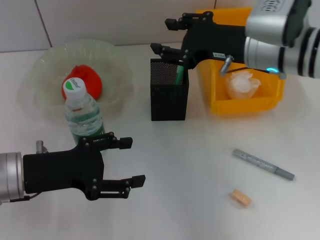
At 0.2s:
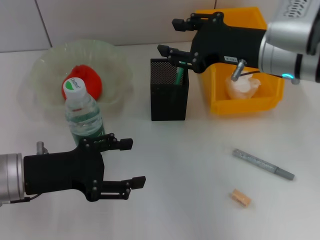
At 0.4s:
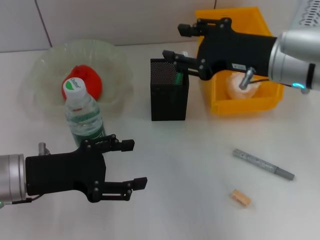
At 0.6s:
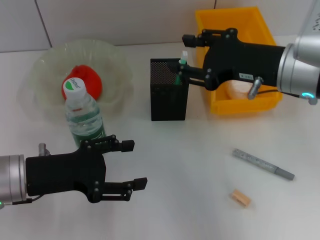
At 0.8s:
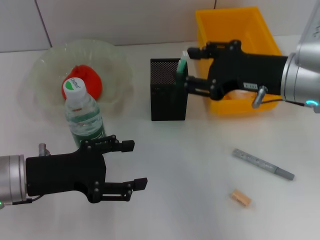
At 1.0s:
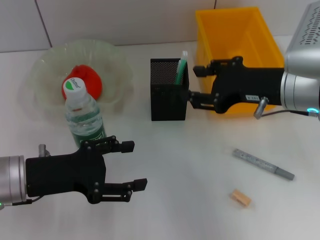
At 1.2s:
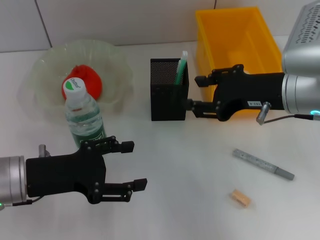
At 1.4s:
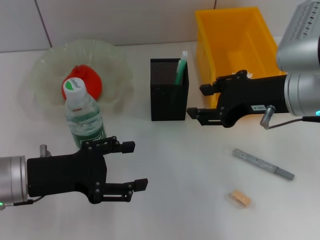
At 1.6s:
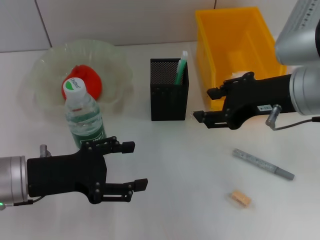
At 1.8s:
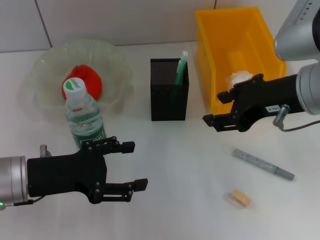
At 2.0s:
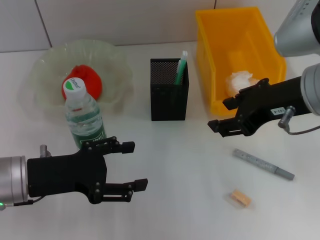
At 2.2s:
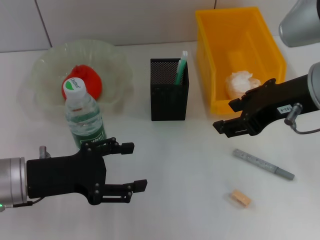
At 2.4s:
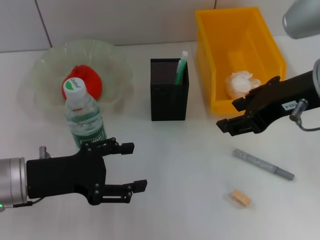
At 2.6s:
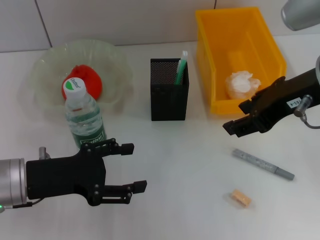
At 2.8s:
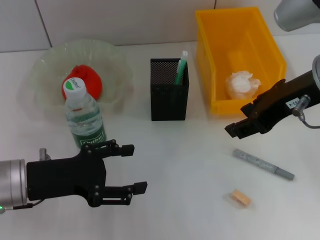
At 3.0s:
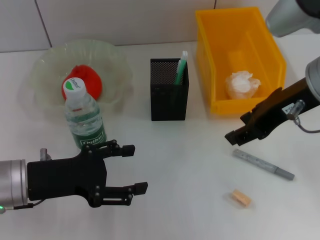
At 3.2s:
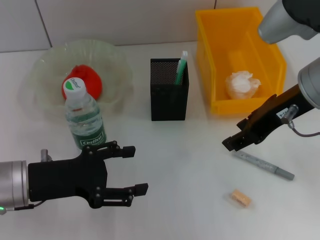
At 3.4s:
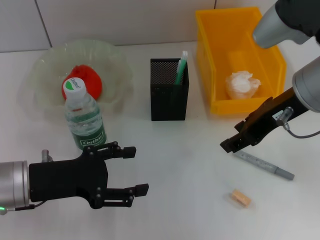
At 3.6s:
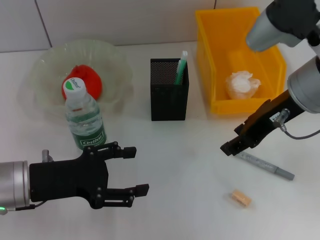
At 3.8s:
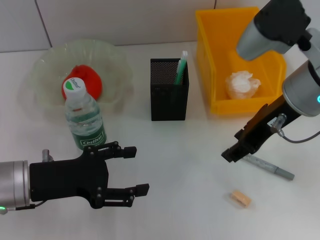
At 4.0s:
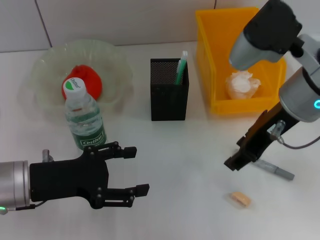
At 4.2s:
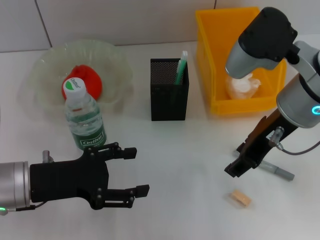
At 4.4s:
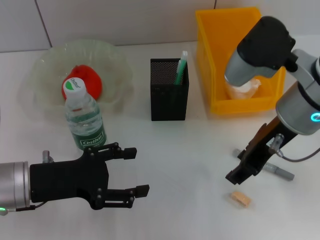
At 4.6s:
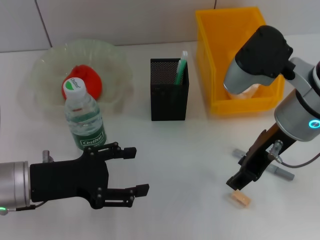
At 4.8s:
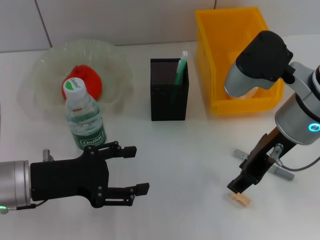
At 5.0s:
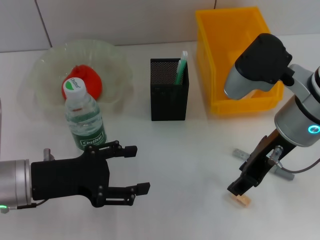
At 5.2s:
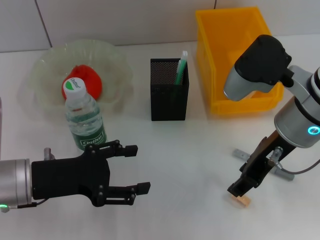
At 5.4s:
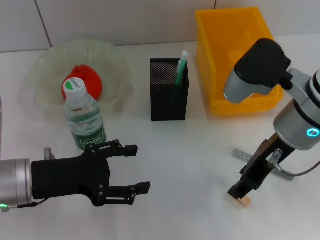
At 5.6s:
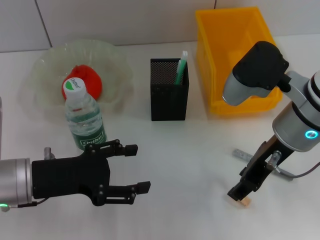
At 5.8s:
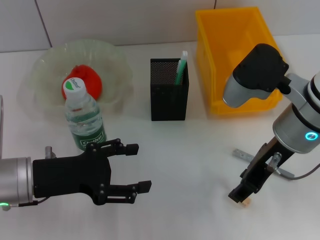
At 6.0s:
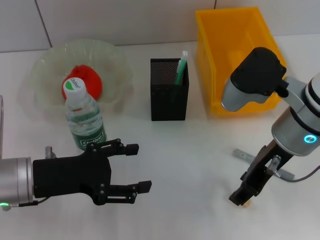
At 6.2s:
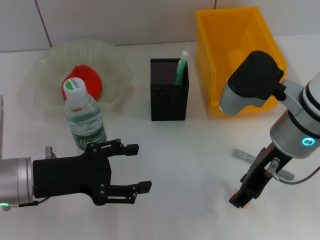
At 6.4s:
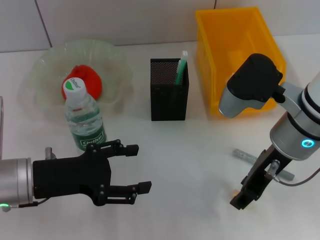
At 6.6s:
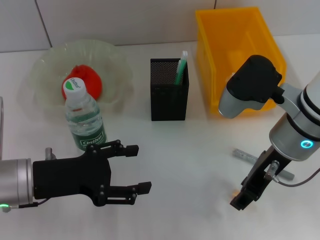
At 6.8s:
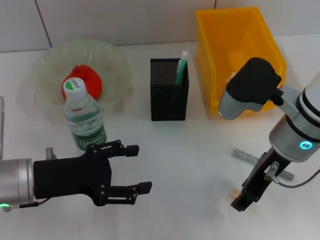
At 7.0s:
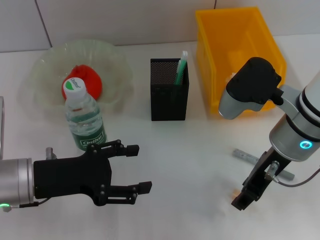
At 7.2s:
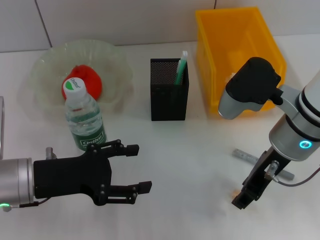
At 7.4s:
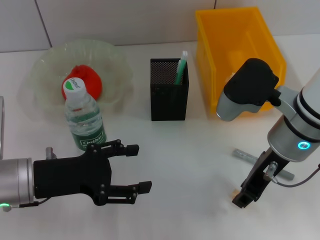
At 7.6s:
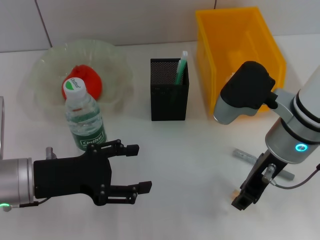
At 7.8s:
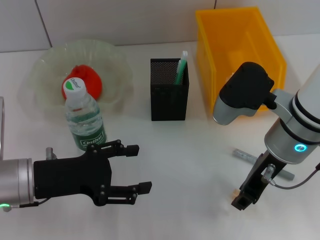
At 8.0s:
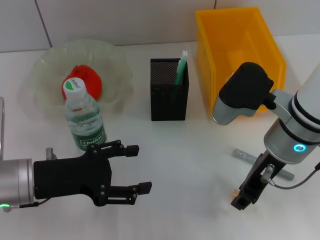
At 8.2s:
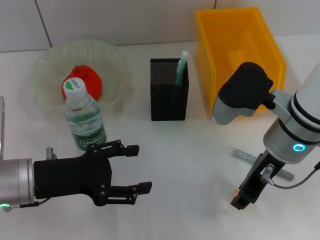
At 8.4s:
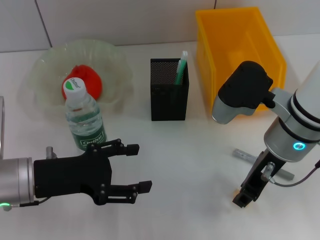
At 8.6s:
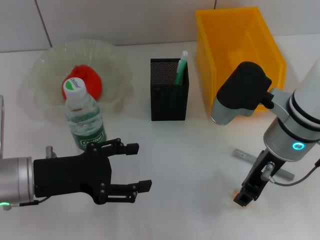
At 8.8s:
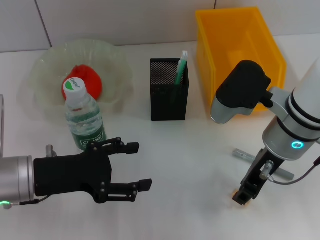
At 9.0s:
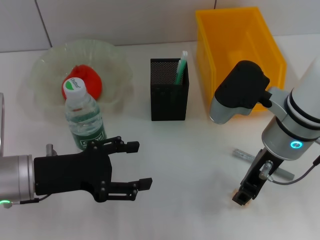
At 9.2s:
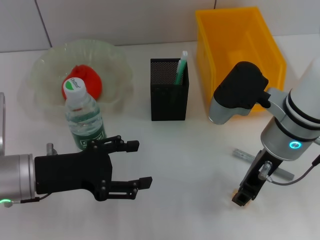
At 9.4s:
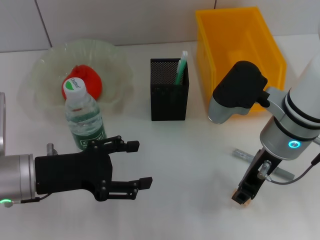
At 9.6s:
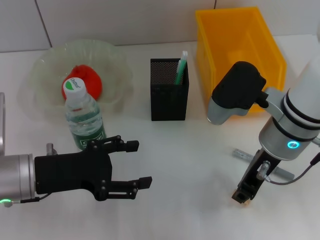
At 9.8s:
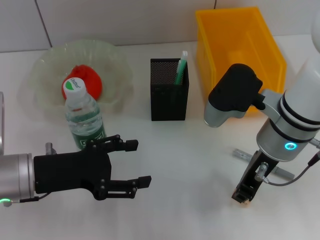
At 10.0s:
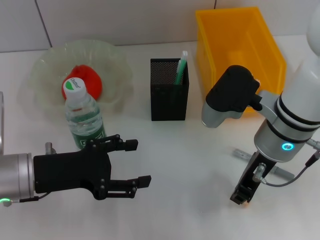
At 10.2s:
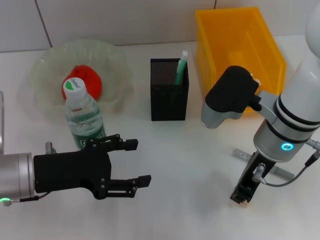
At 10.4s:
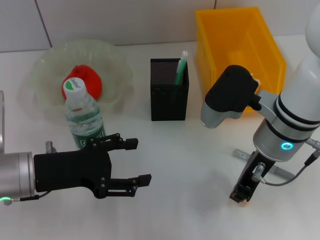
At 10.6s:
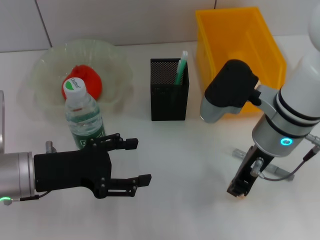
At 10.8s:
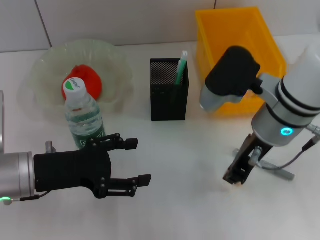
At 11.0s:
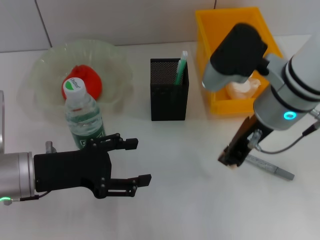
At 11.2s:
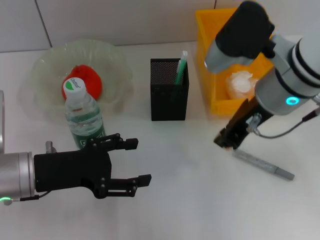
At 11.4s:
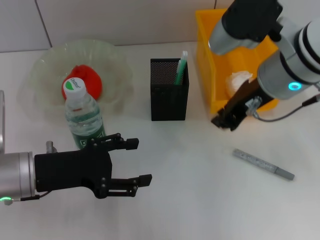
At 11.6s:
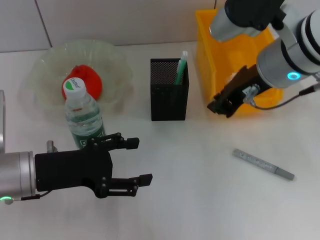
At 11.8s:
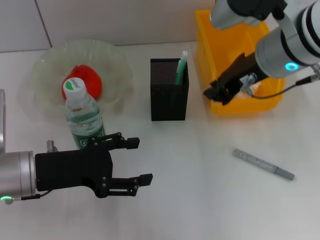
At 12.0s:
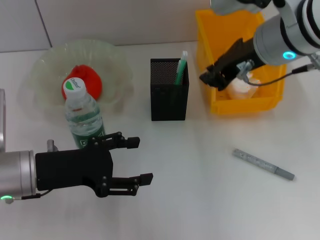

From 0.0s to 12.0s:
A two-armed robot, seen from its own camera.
Step, from 0.0s to 10.2s: Grab the eraser with the right hand.
From 0.0s to 1.6s: The right gripper shifts roughly 5 cm backward.
From 3.0s to 4.4s: There are only small adjustments of the grippers.
From 4.4s to 7.6s: The grippers make only small movements.
From 7.6s to 9.0s: Neither gripper changes place.
From 9.0s to 10.4s: Both grippers stay about where they are.
From 10.4s to 12.0s: The right gripper travels upward by approximately 10 cm.

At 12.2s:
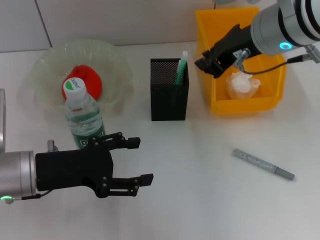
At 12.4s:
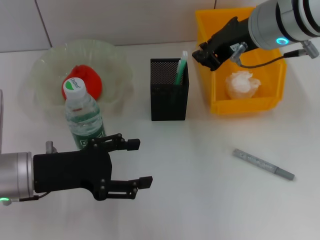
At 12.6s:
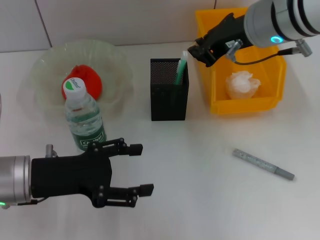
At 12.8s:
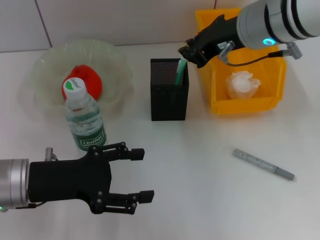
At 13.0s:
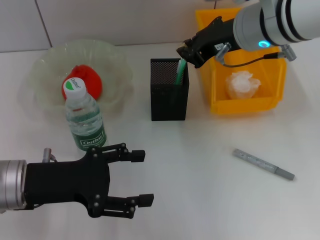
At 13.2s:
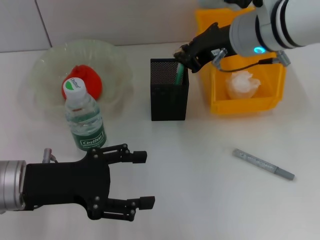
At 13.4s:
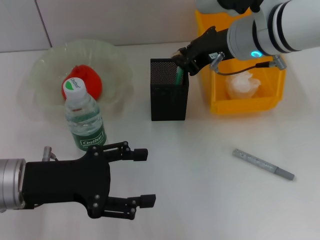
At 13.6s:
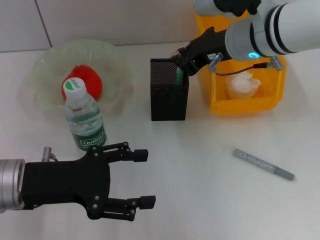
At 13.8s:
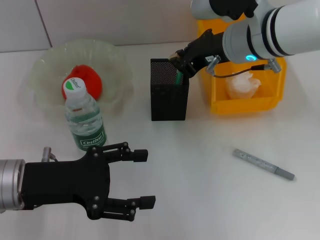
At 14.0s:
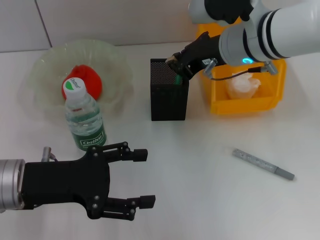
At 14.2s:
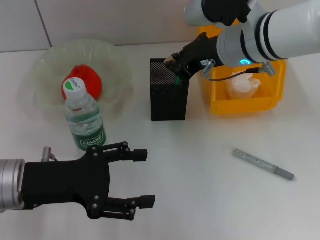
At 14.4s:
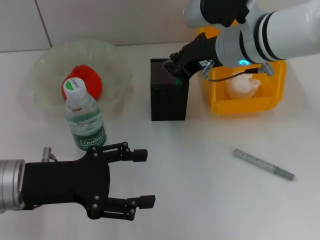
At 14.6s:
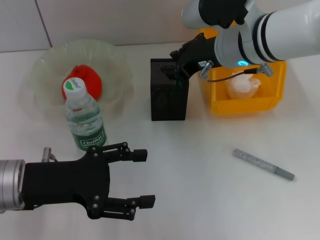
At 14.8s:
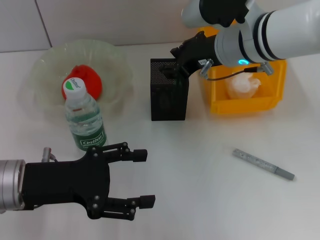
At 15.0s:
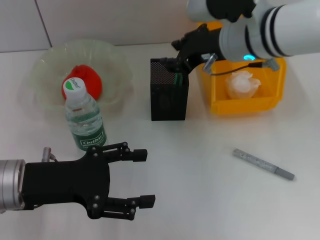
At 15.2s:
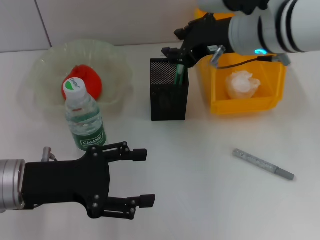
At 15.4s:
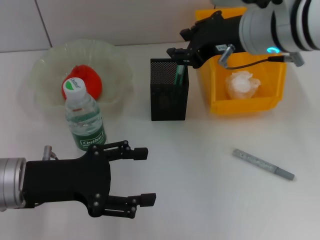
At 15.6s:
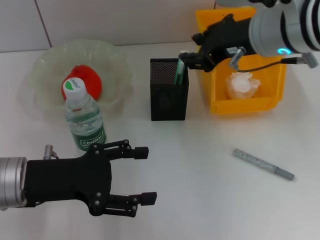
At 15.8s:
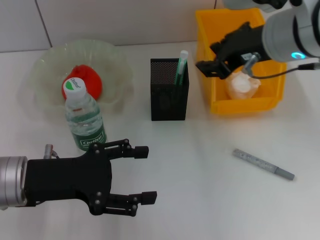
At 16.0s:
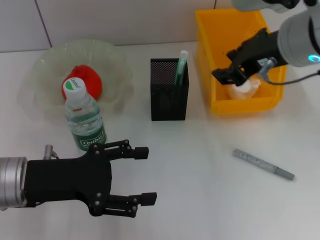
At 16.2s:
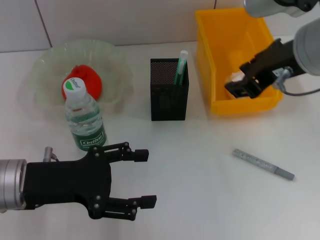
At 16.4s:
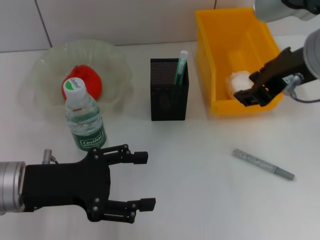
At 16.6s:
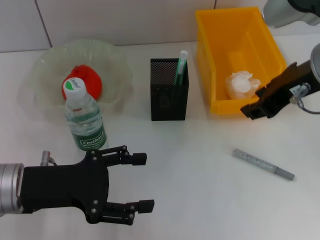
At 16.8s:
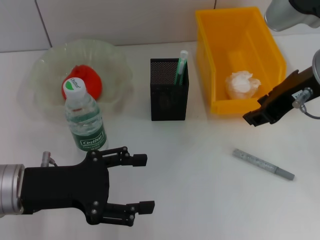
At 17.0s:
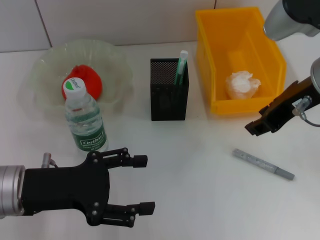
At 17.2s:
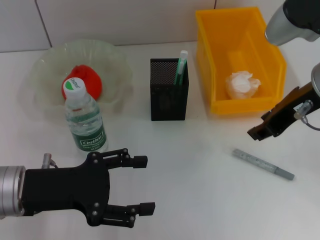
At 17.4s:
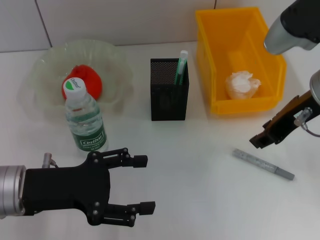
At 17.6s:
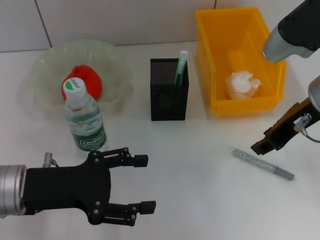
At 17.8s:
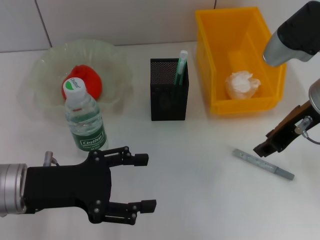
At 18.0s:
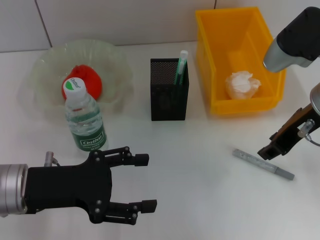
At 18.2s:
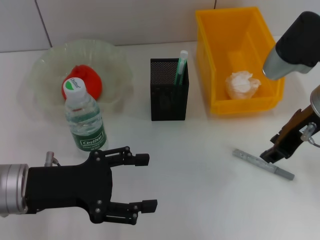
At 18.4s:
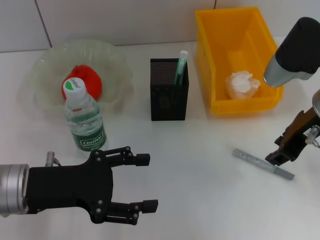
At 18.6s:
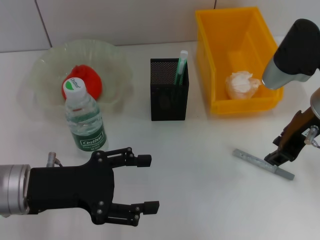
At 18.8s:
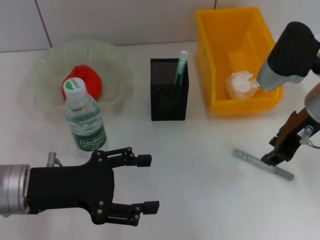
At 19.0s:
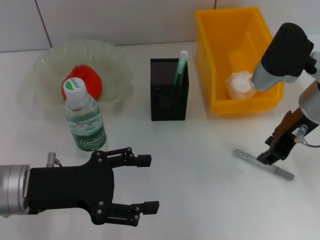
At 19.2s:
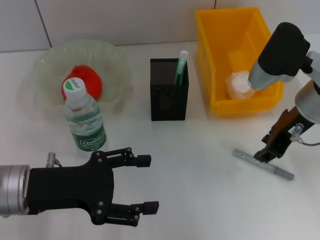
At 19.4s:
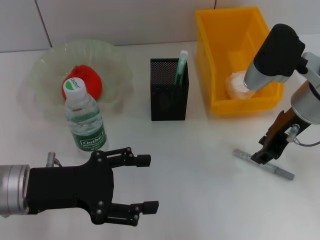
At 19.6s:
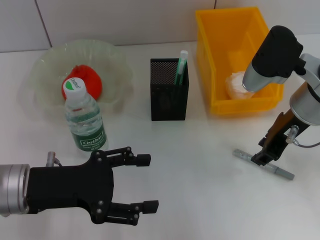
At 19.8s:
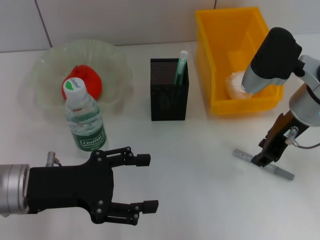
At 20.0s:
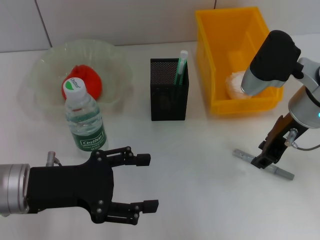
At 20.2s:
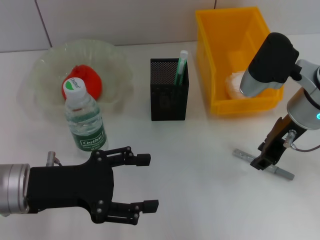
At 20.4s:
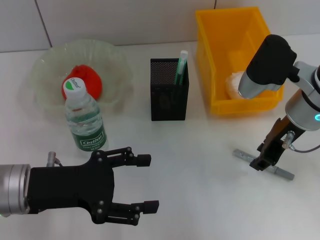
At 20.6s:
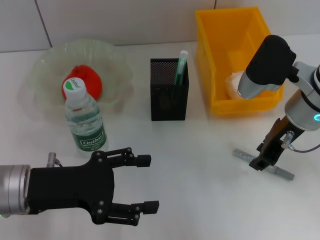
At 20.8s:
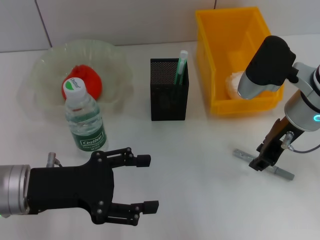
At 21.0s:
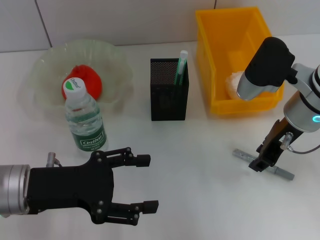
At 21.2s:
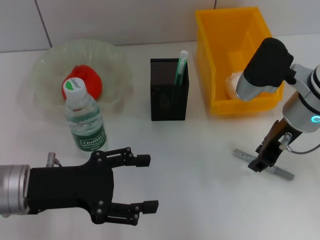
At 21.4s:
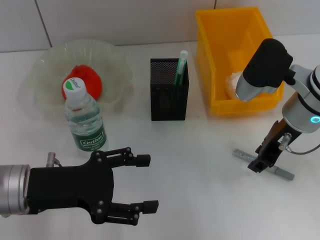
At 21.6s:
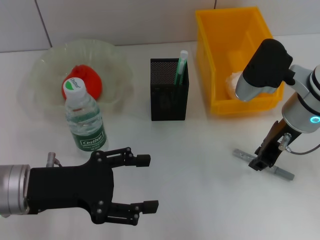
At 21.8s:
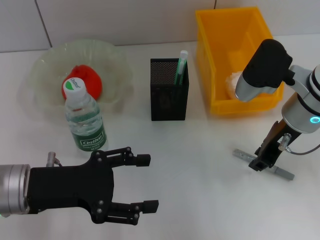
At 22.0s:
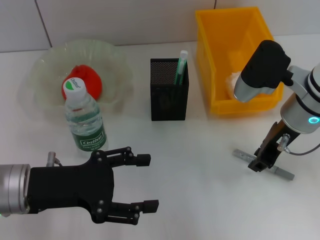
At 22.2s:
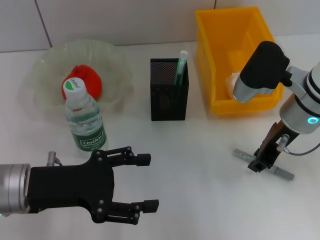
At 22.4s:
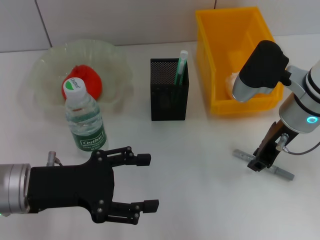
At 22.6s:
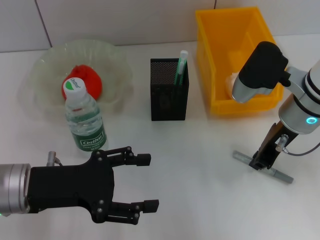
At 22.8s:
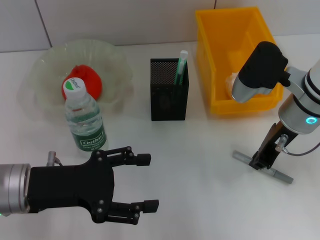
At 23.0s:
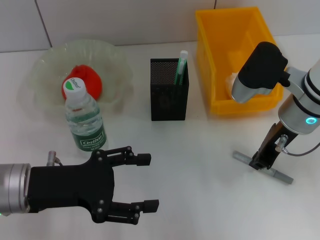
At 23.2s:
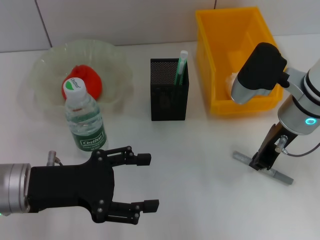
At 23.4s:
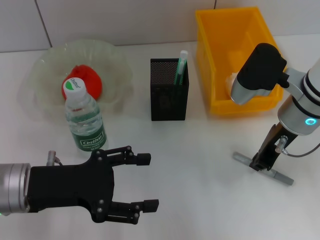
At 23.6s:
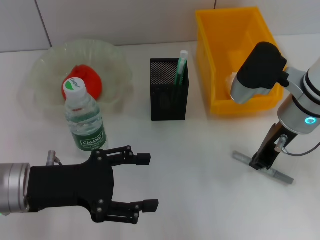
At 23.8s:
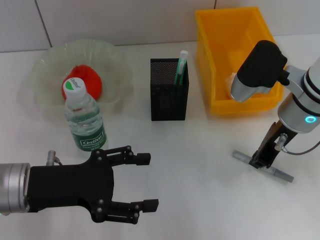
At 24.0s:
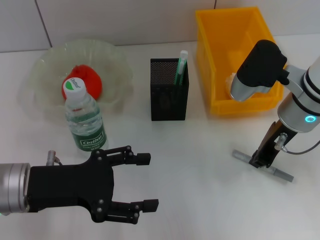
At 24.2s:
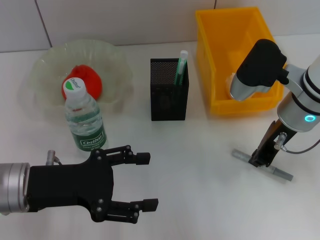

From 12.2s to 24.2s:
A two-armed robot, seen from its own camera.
Step, from 12.2s to 14.8s: Put the eraser into the pen holder with the right hand.
From 12.2s to 13.8s: The right gripper shifts by about 5 cm.
From 13.8s to 15.2s: The right gripper opens up.
From 15.2s to 16.6s: The right gripper heads backward and to the right, covering approximately 10 cm.
From 16.6s to 18.2s: The right gripper moves downward, some 5 cm.
From 18.2s to 21.2s: The grippers stay close to where they were, moving slightly.
From 21.2s to 24.2s: The two grippers keep their place.
